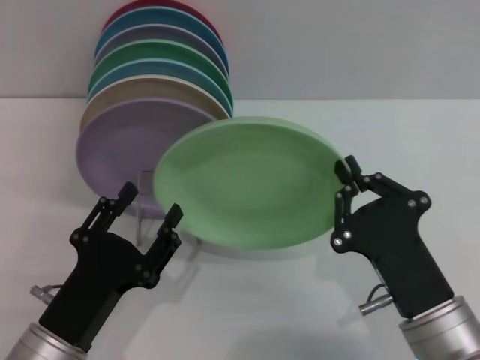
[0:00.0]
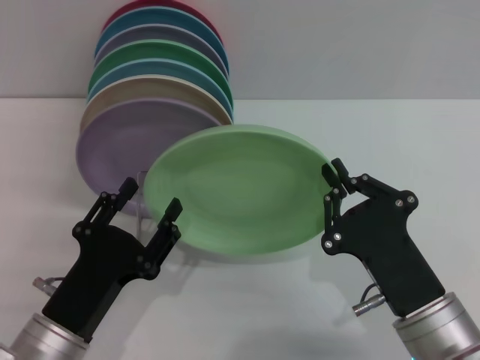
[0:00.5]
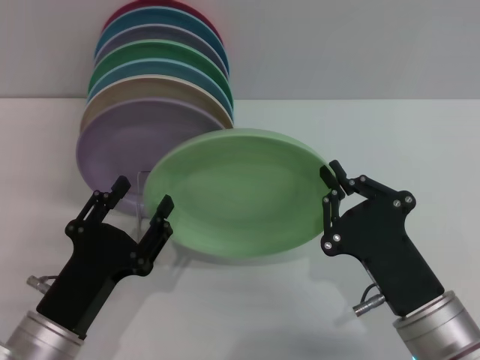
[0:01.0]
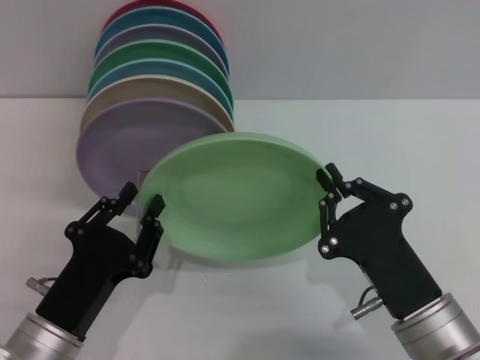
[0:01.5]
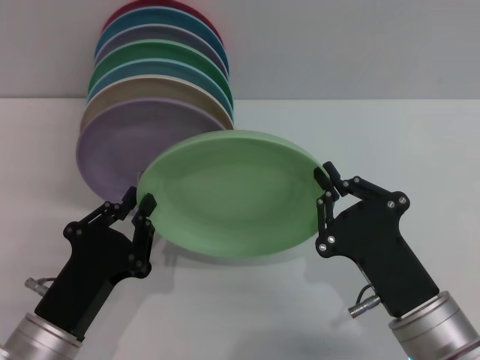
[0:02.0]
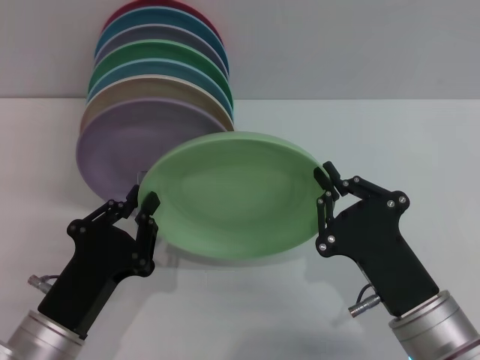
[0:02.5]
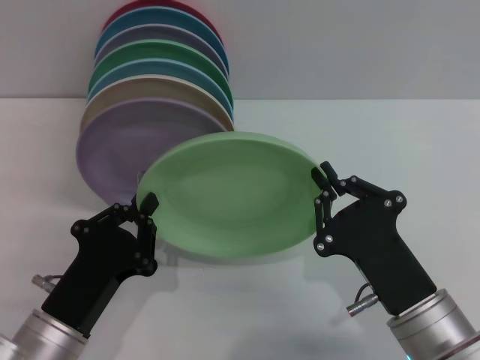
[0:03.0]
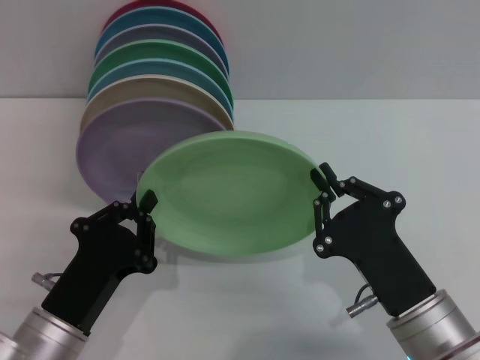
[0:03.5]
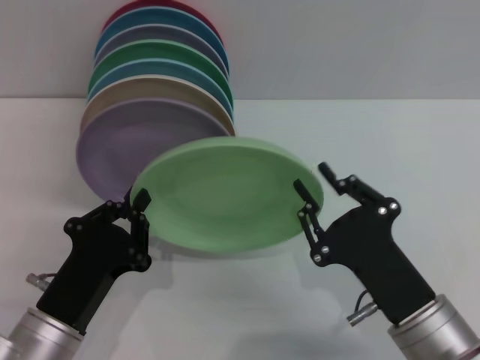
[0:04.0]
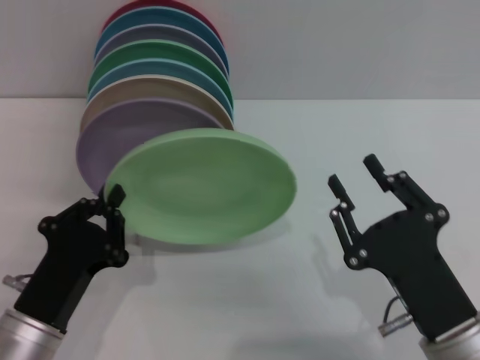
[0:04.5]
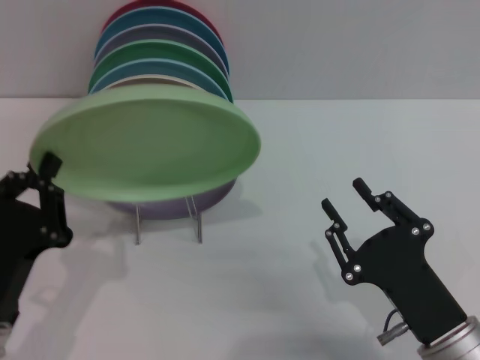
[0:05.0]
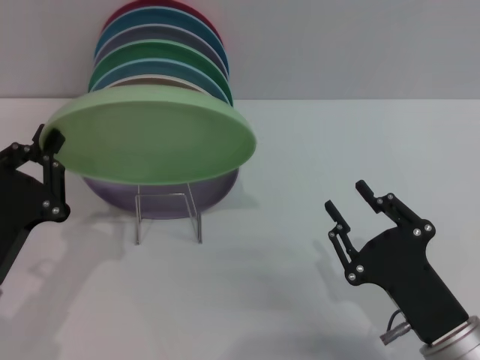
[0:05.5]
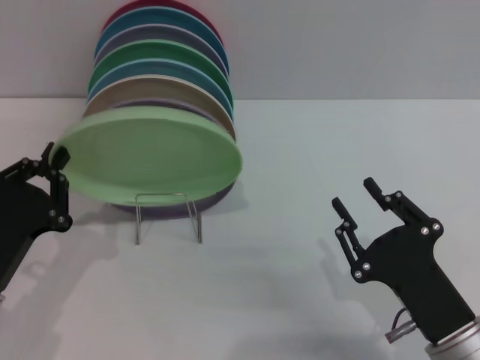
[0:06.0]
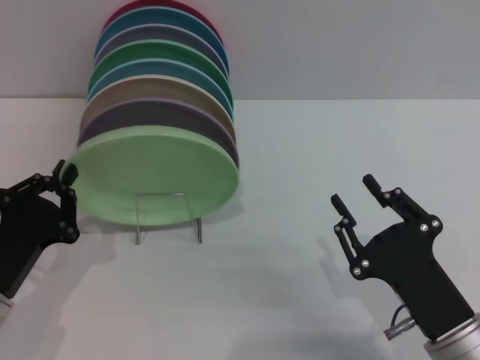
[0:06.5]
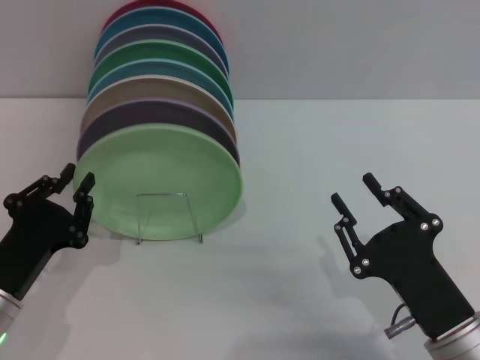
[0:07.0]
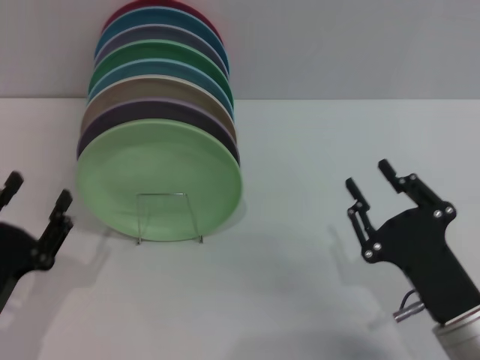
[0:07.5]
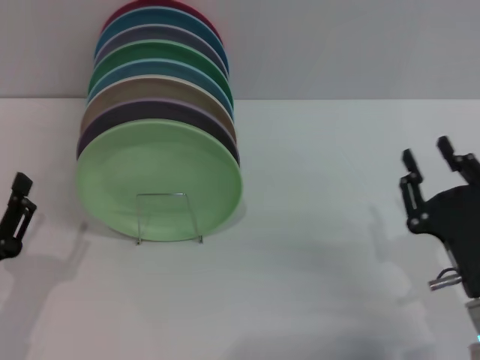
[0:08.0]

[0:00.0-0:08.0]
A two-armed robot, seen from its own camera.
Task of the whole recording: Grip the plate with one hand, pass it to the other, then set it on the shelf.
Step, 0:00.0 to 0:04.0: Pass the plate from the right gripper to the left gripper.
Step, 0:05.0 to 0:07.0: Place the plate on the shelf with the left gripper.
0:00.0 to 0:02.0: The left gripper closes.
0:02.0 to 0:04.0: There are only small adjustments of the grippers.
0:04.0 to 0:06.0: The left gripper travels to the left by about 5 cm. The right gripper opens its fingers.
0:06.0 to 0:08.0: The left gripper opens.
